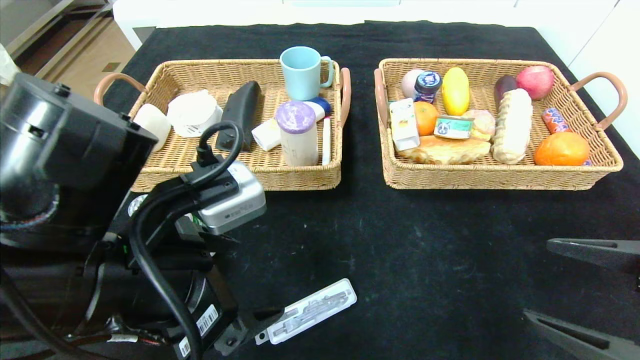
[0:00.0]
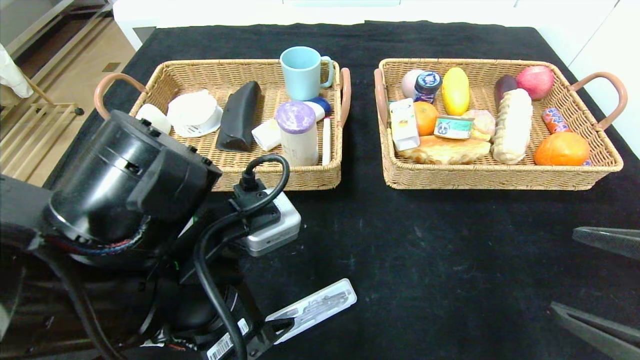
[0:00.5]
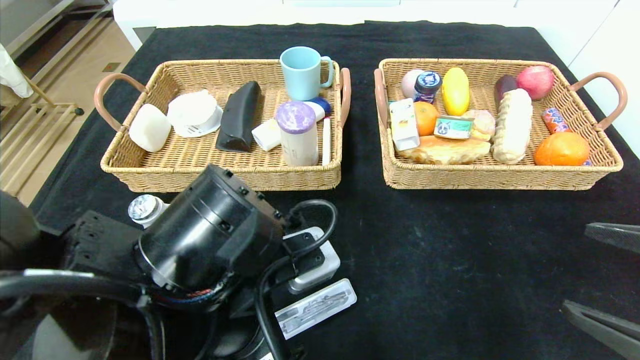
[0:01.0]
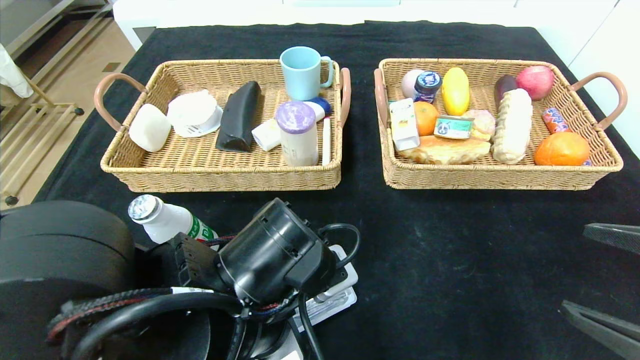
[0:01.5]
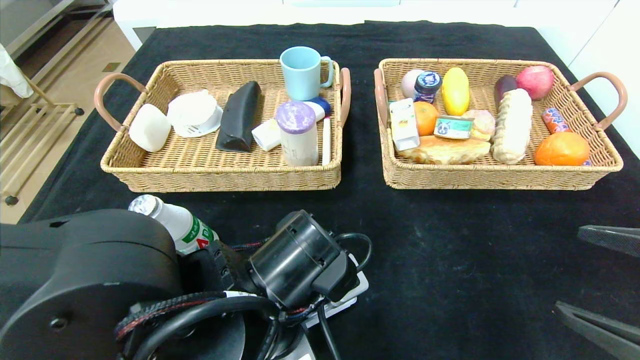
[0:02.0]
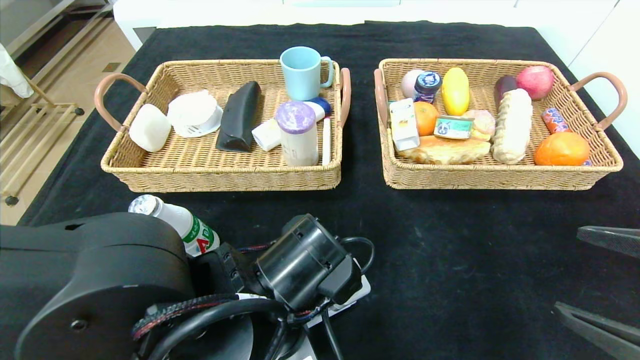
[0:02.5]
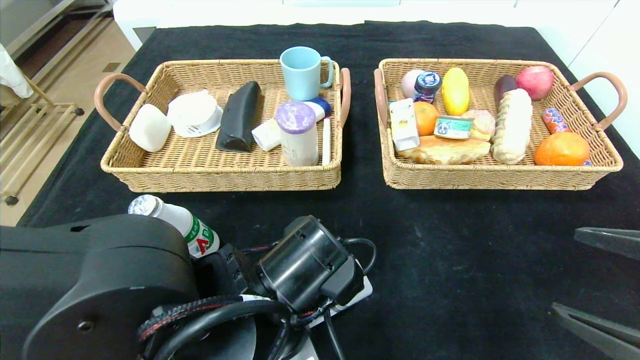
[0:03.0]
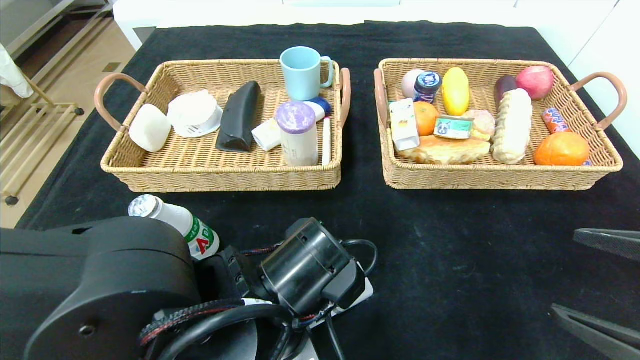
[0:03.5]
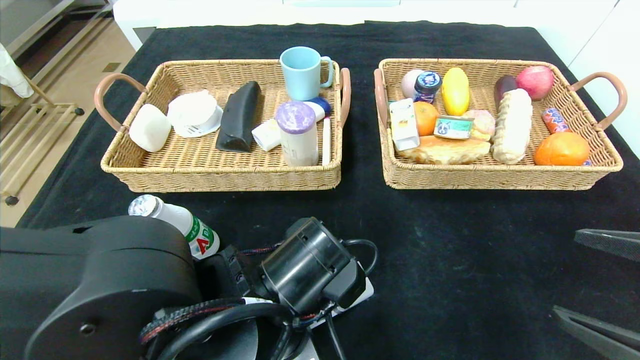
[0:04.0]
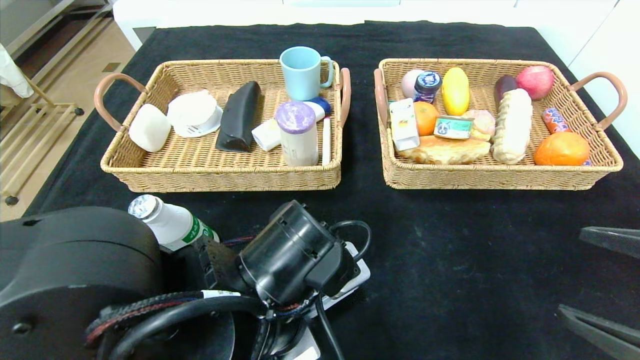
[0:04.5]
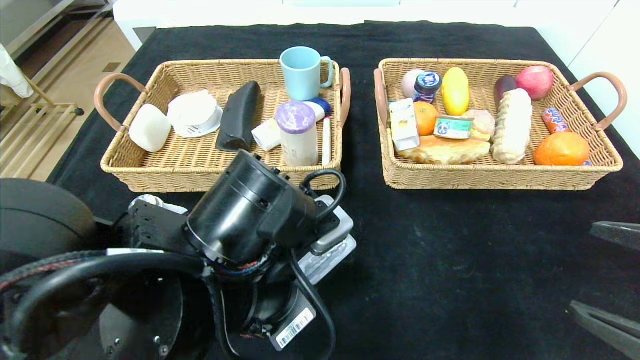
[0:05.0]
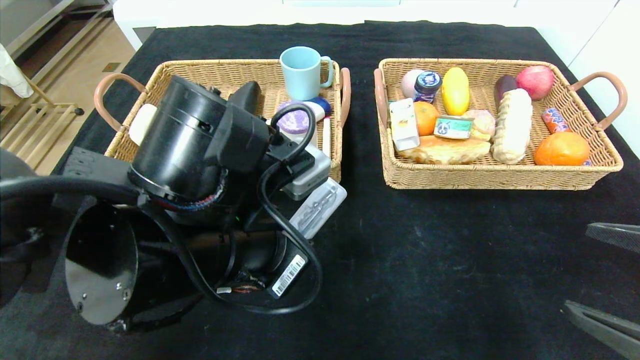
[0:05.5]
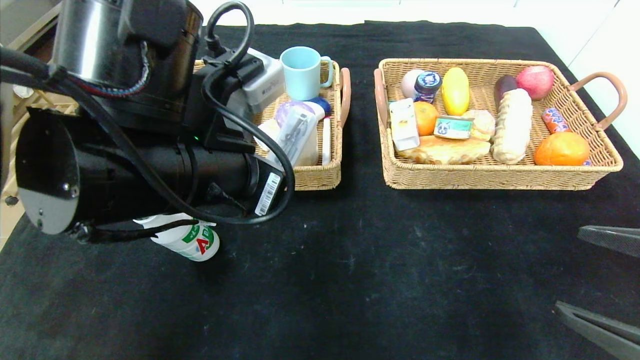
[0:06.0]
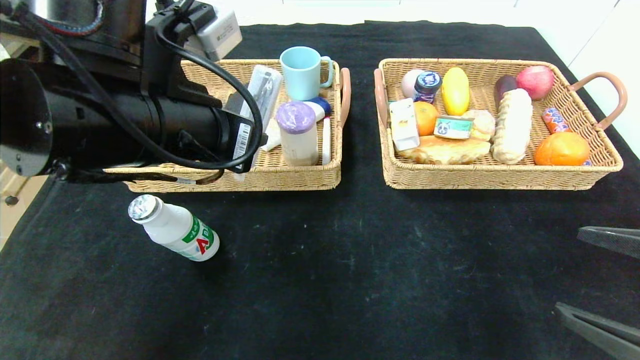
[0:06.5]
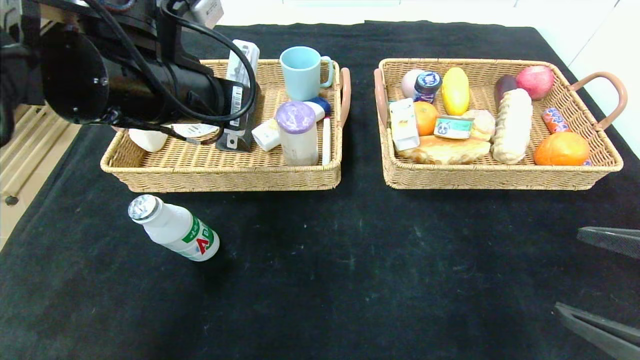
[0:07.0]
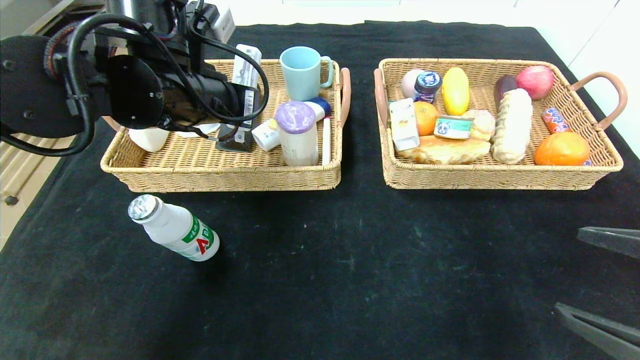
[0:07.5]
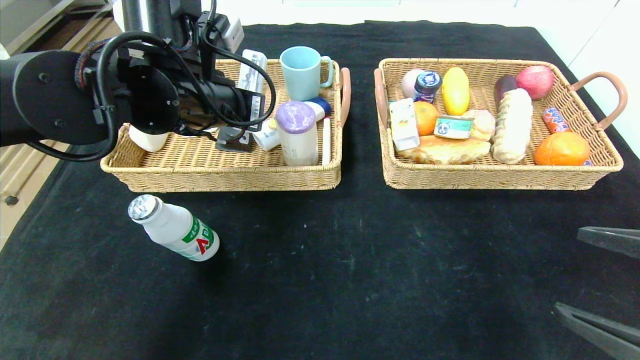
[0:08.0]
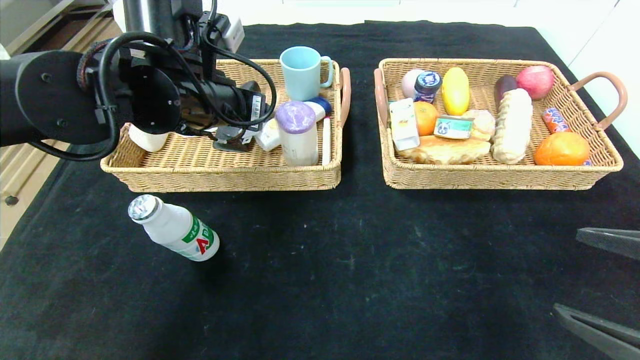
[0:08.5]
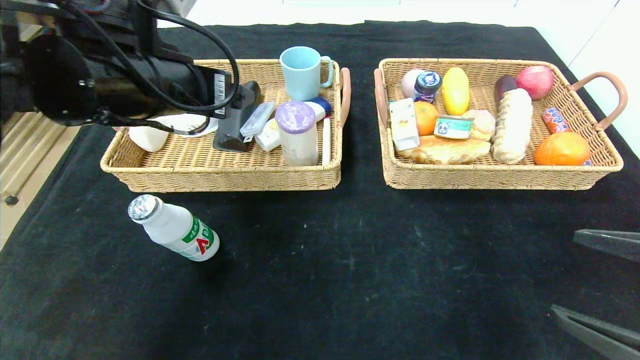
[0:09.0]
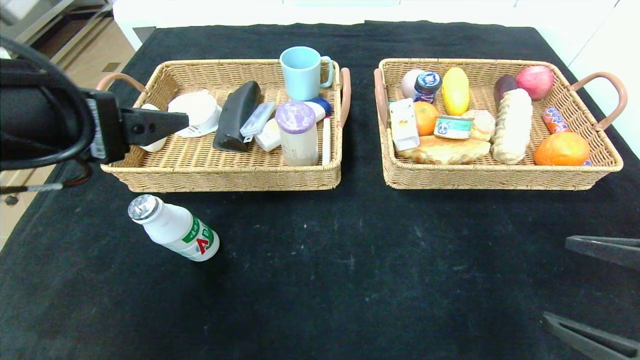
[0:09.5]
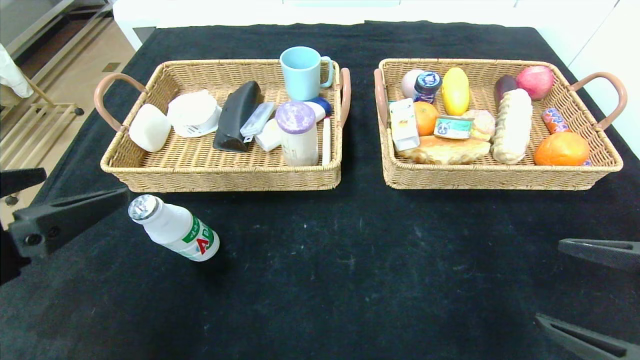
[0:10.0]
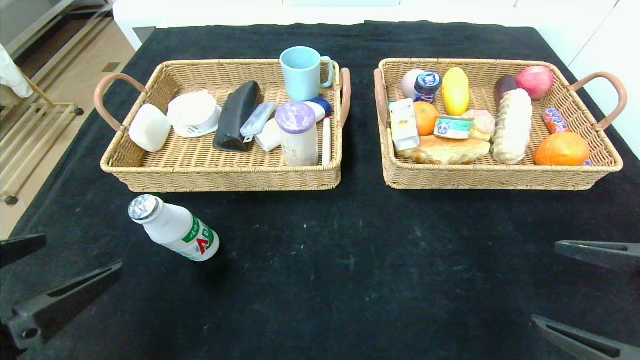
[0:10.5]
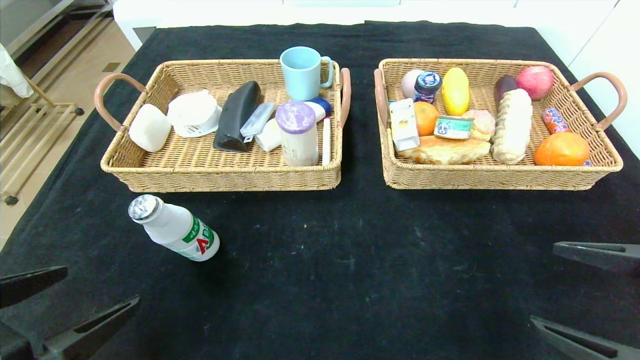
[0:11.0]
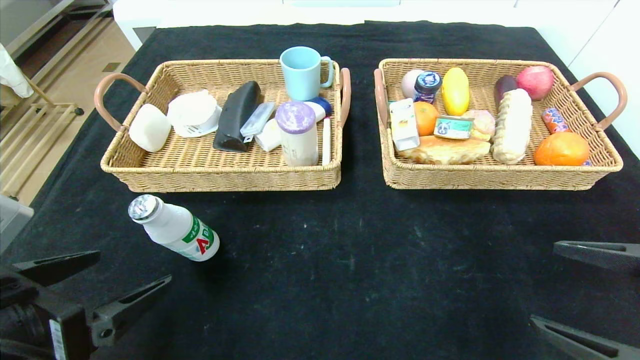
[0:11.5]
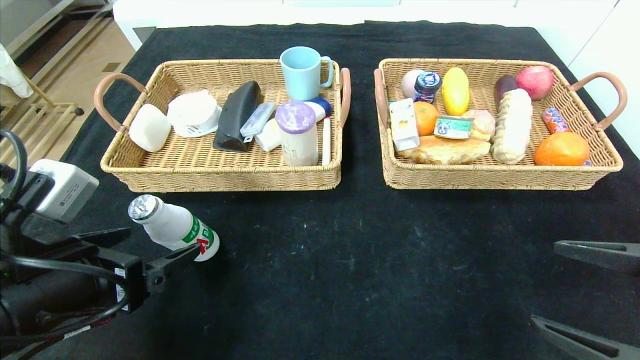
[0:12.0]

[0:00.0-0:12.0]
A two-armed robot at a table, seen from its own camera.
Step, 0:00.0 to 0:08.5: Grasp the compass and put it in the left basket.
0:00.0 to 0:02.0: The left gripper heads to the right and downward, covering approximately 10 cm.
0:02.0 to 0:04.0: The left gripper closes up.
0:04.0 to 0:06.0: The left gripper heads upward and to the left, covering about 15 cm.
0:06.0 to 0:08.0: The left gripper moves forward, about 10 cm.
0:08.0 to 0:10.0: The left gripper moves backward and to the left, approximately 25 cm, and opens up.
0:10.0 to 0:12.0: The left gripper moves downward, about 10 cm.

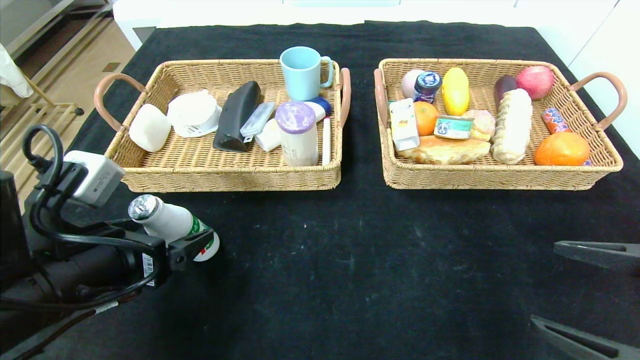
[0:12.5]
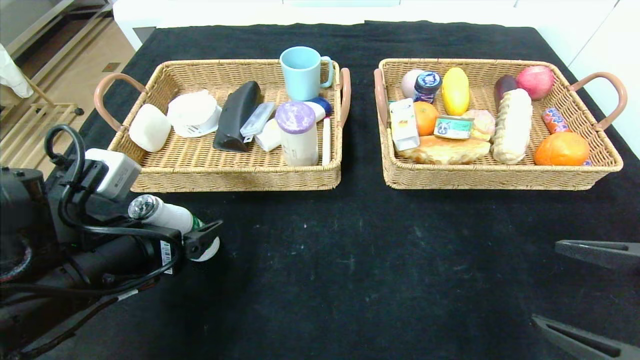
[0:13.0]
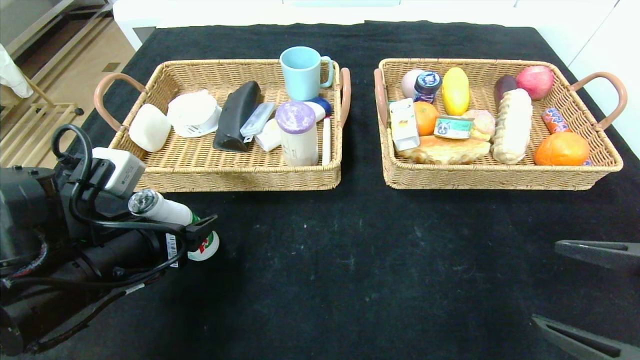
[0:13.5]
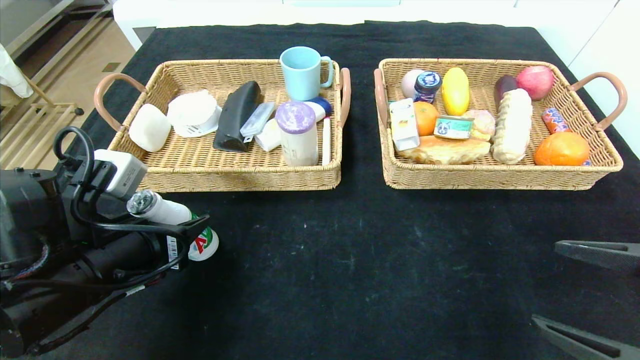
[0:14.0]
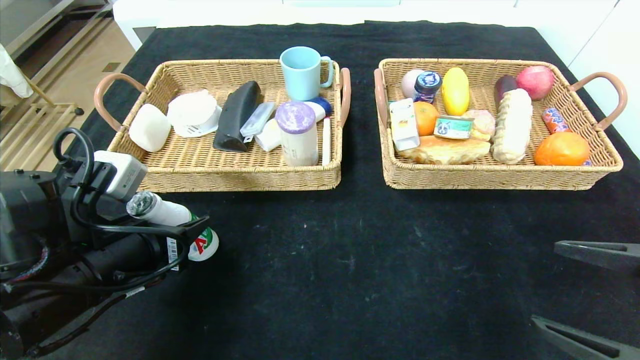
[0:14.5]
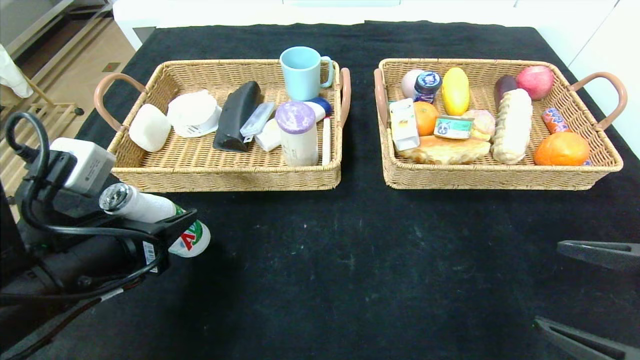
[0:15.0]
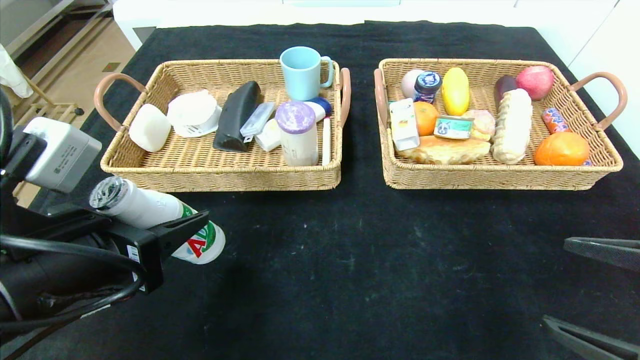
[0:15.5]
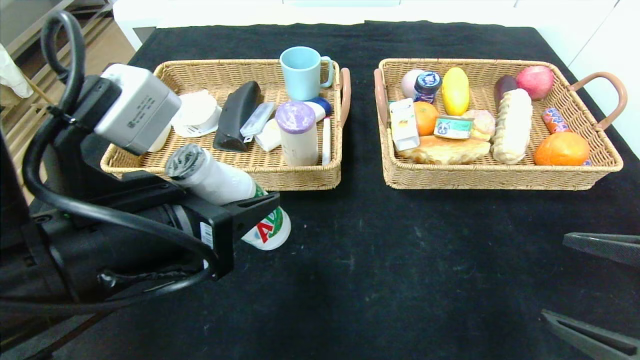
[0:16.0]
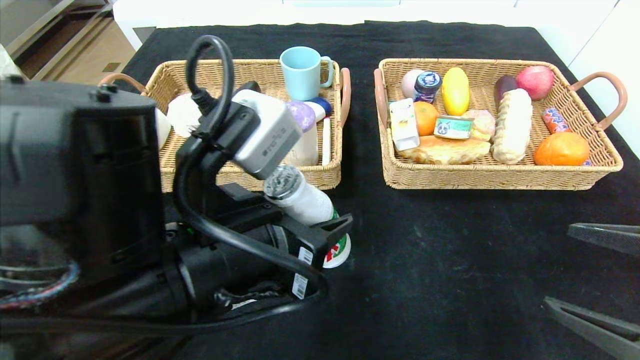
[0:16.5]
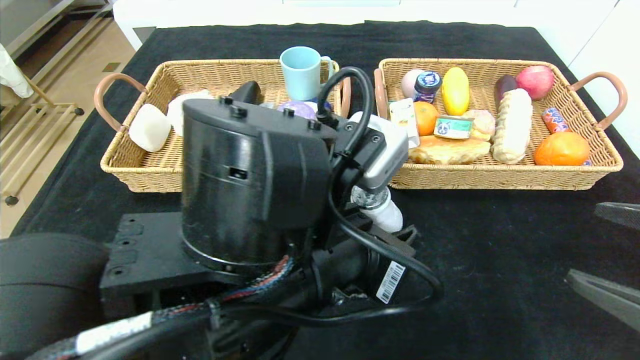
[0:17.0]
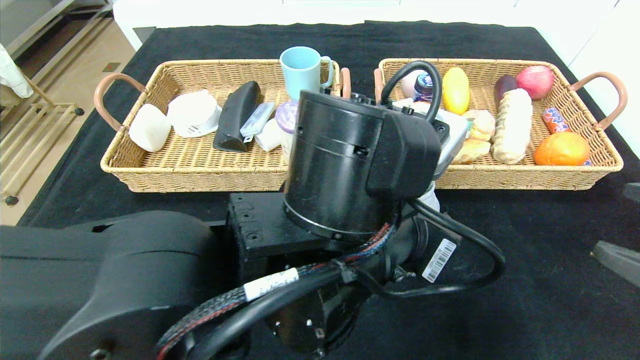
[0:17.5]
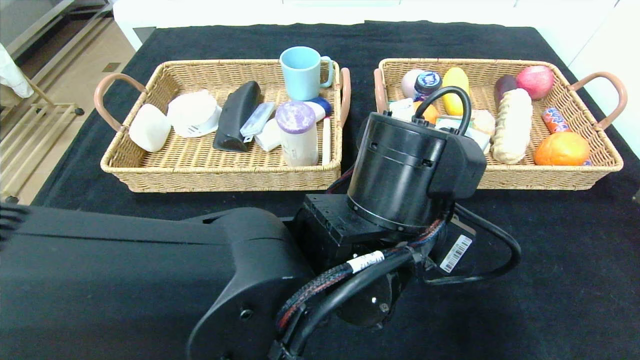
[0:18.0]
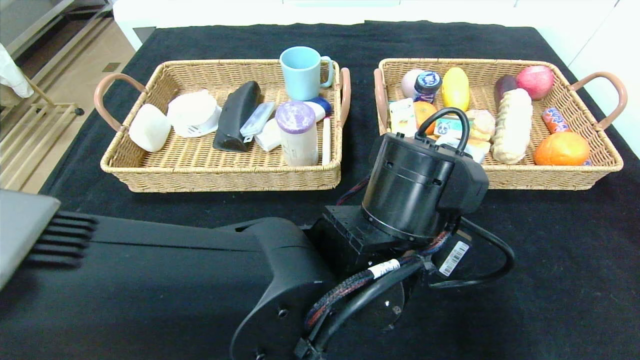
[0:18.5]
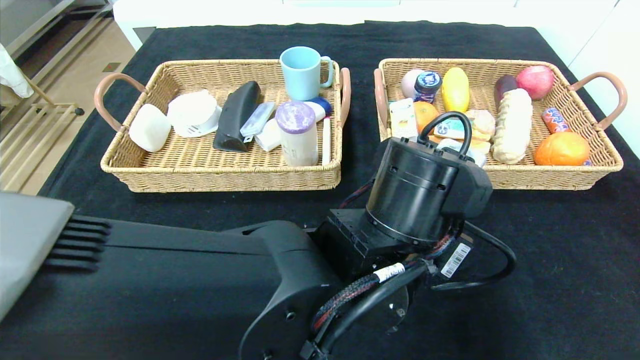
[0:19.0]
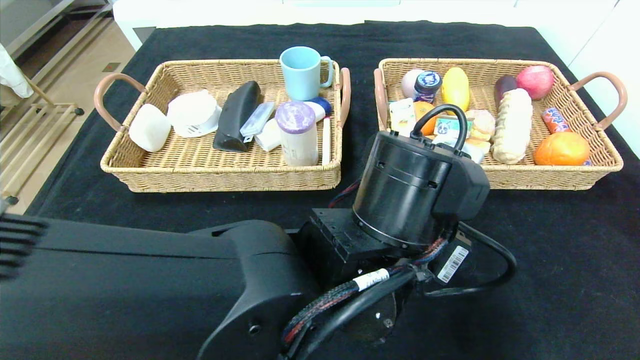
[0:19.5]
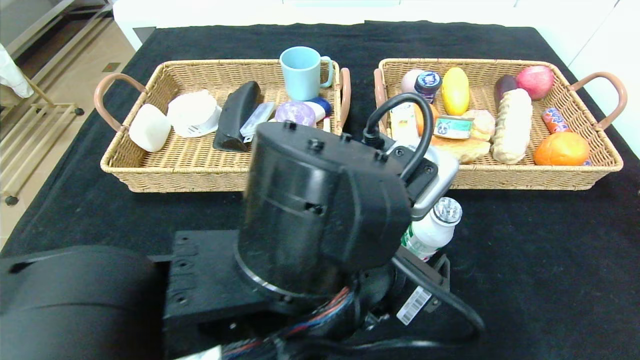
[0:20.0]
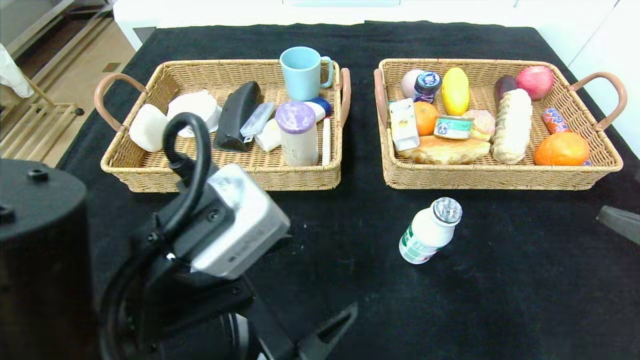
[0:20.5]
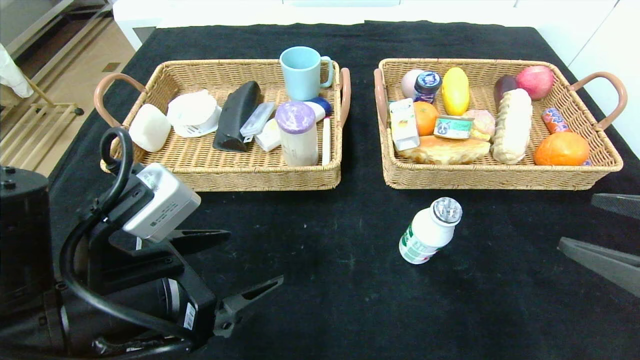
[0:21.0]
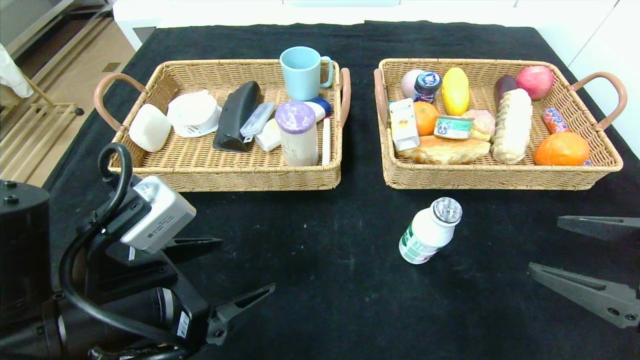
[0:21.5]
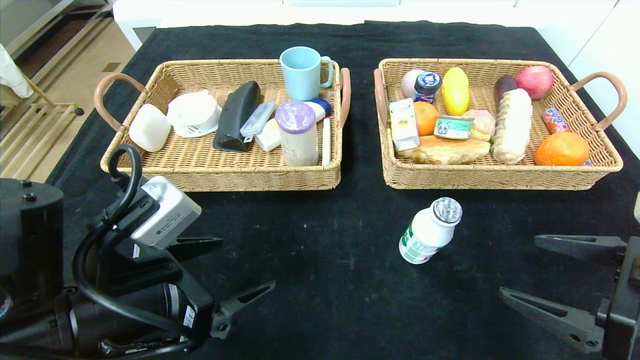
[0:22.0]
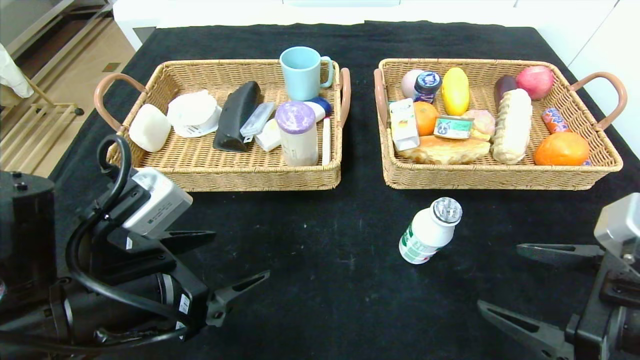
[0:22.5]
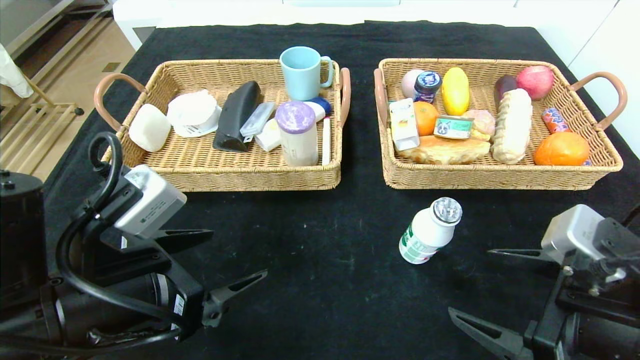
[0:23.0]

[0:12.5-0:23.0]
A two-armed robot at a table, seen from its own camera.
Step, 0:12.5 to 0:19.5: Place the ad milk in the center of the table.
0:12.5 to 0:14.5: The left gripper closes.
0:14.5 to 0:16.5: The left gripper travels to the right and upward by approximately 15 cm.
0:16.5 to 0:19.0: The left gripper heads to the right and forward, covering approximately 15 cm. The right gripper heads upward, covering about 5 cm.
0:19.0 to 0:21.0: The right gripper ends up about 5 cm from where it was. The left gripper is displaced to the left by about 25 cm, and opens up.
0:21.0 to 0:23.0: The right gripper moves to the left, roughly 10 cm.
